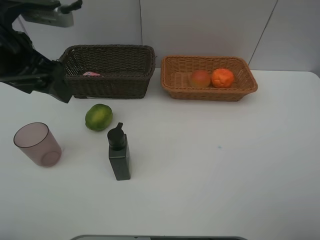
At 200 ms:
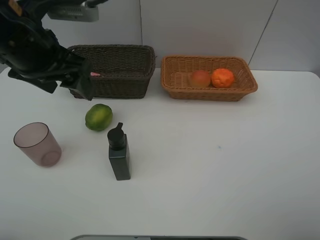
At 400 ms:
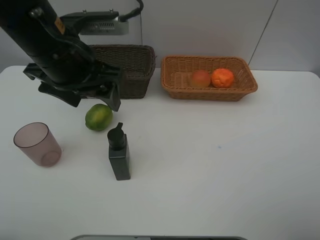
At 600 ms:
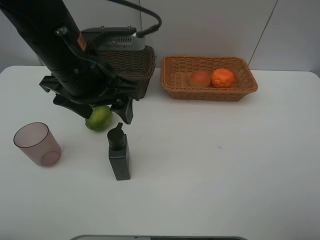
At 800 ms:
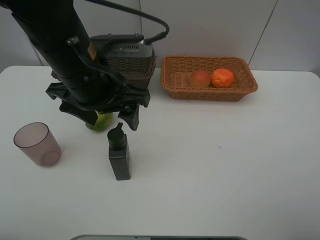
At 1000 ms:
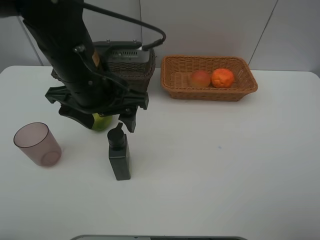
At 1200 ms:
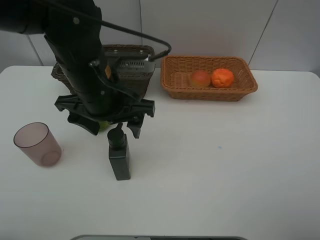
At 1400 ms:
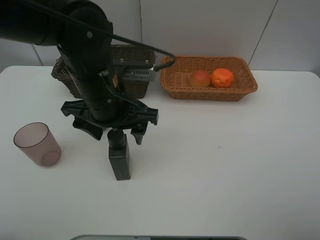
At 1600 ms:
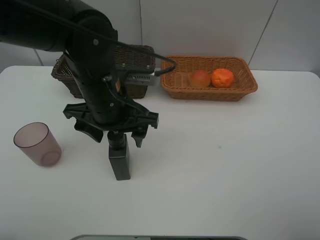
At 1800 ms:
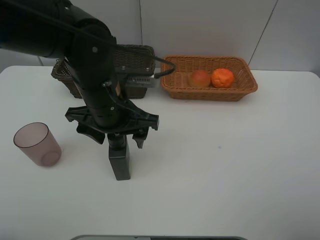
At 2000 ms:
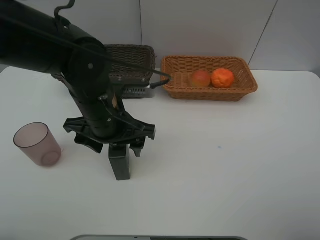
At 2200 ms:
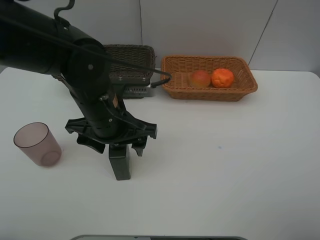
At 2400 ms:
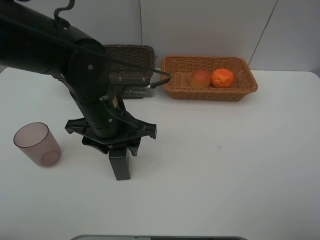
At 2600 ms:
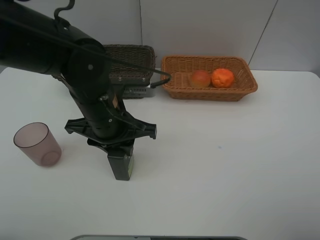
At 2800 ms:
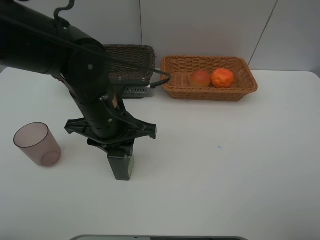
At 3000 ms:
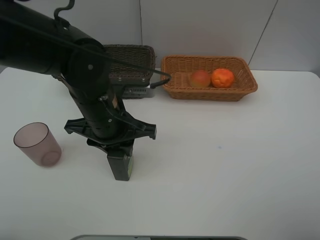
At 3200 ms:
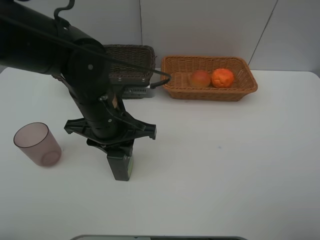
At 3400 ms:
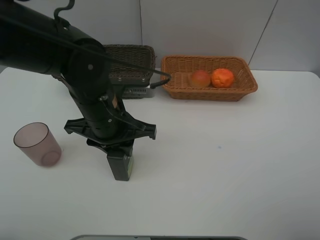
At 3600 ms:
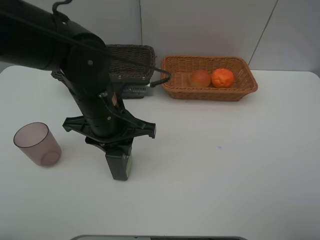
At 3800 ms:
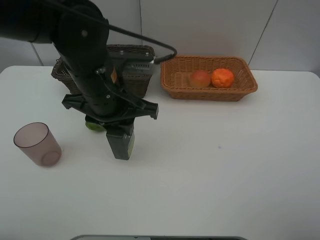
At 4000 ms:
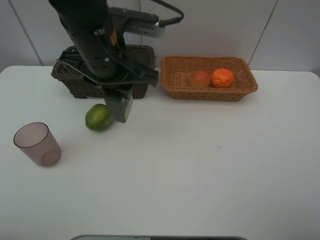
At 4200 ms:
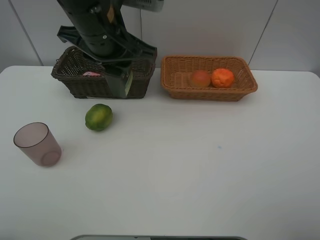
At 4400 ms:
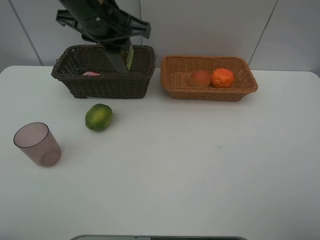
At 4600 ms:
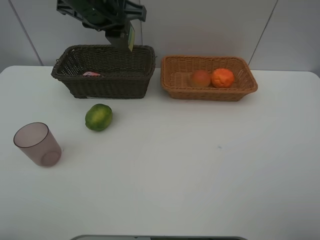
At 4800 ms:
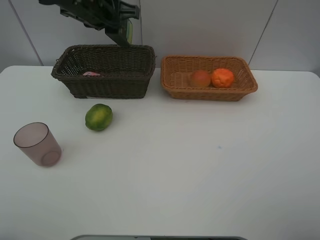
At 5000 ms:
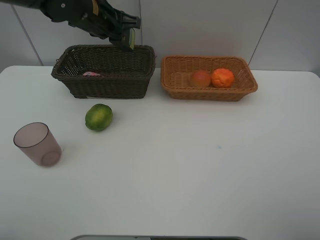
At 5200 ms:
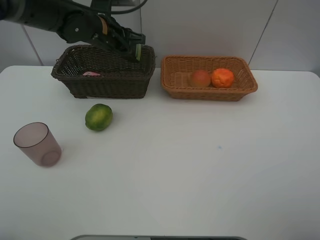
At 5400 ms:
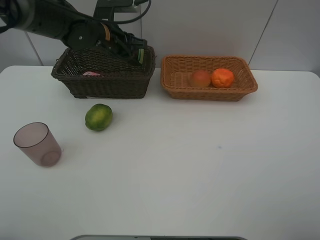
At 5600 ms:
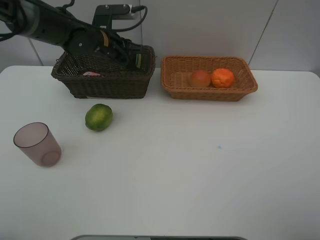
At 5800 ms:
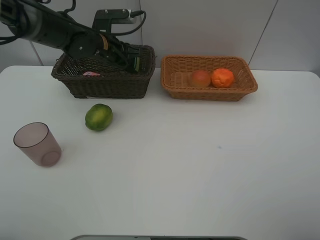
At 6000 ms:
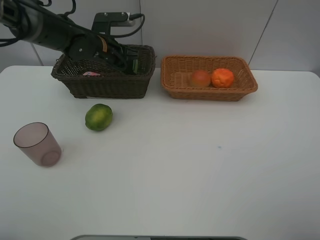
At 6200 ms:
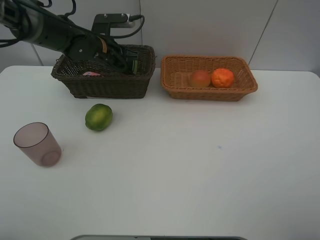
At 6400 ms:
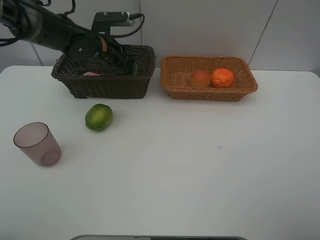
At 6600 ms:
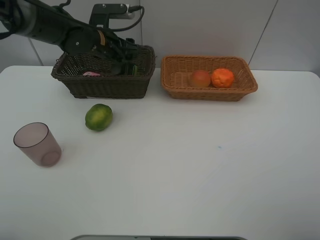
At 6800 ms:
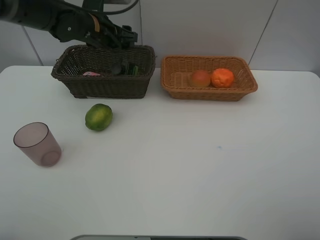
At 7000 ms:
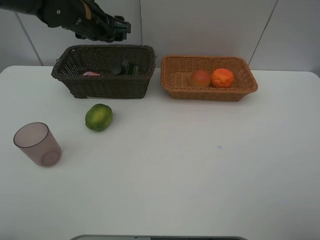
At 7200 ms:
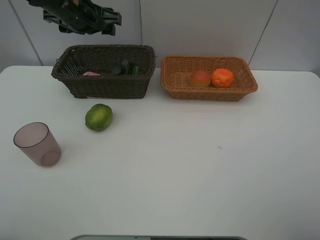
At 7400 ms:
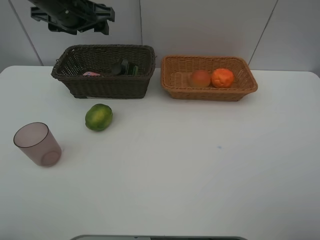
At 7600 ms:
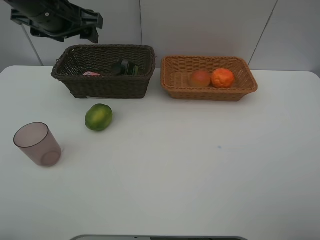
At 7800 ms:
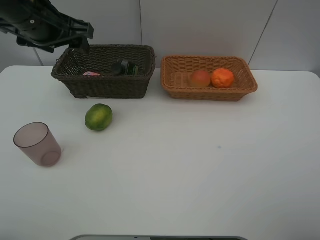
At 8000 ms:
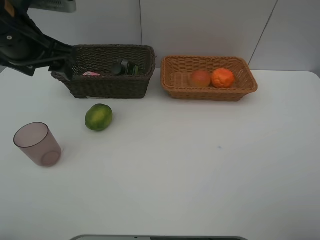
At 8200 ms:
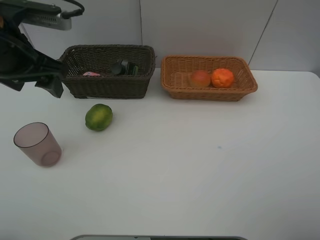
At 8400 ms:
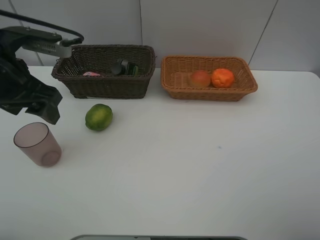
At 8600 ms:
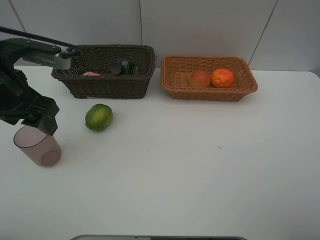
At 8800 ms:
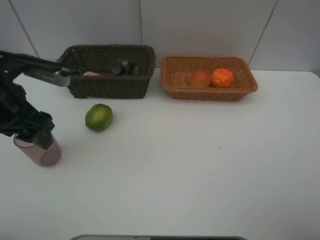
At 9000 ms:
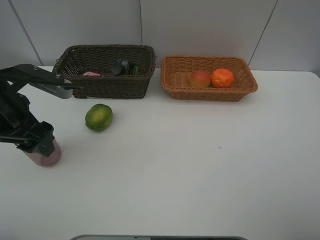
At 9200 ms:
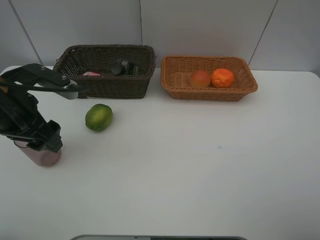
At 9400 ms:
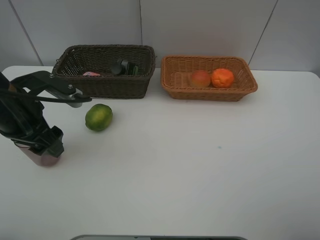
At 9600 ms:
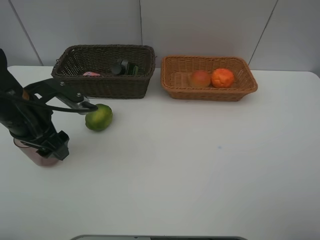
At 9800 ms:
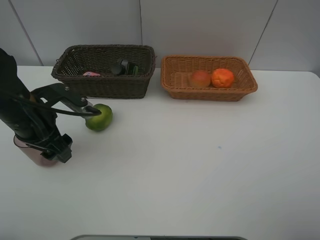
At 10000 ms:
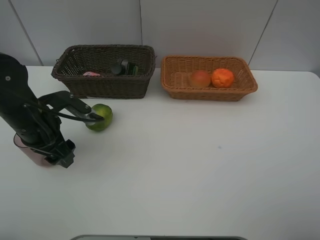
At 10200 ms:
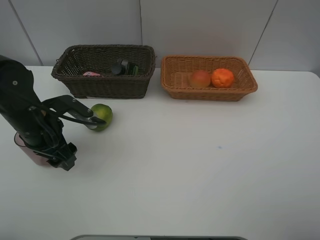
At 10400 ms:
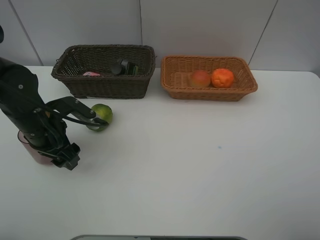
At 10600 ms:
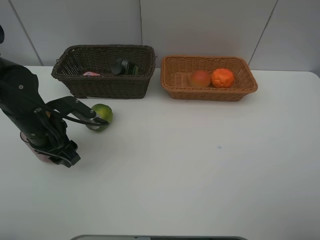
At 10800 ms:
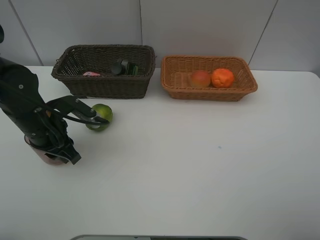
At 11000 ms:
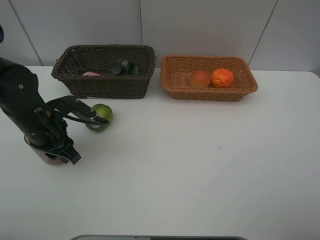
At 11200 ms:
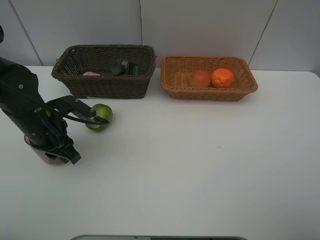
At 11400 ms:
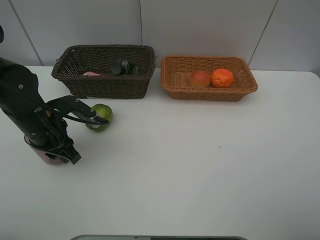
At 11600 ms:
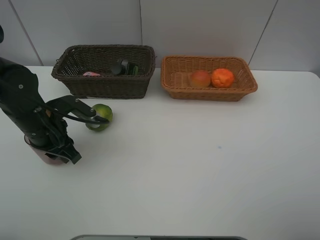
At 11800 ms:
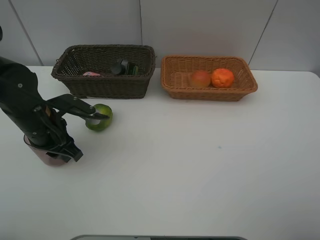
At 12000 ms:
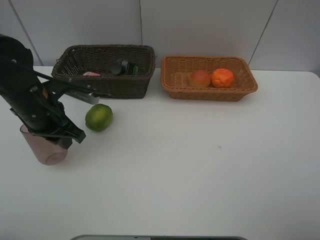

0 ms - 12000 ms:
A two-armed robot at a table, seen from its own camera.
Task of the whole recording: place multiple objects separately in different baskets.
0 ms - 1600 ms: The left gripper travels to the right and downward by about 15 cm.
1600 ms - 3000 ms: The left gripper closes its fingers.
3000 ms - 4400 ms: The left gripper travels upward and forward by about 15 cm.
4400 ms - 6000 ms: The left gripper shifts approximately 20 cm downward and forward.
6000 ms - 7600 ms: The left gripper goes some 15 cm upward and backward, and opens its fingers.
7600 ms - 9000 ms: The left gripper shifts roughly 15 cm backward and downward.
9000 ms - 10400 ms: The left gripper moves downward, approximately 10 cm.
10400 ms - 12000 ms: The left gripper closes.

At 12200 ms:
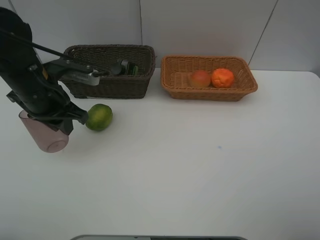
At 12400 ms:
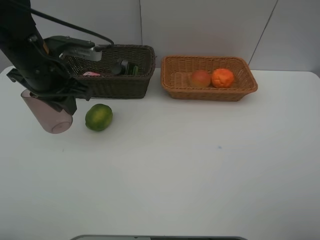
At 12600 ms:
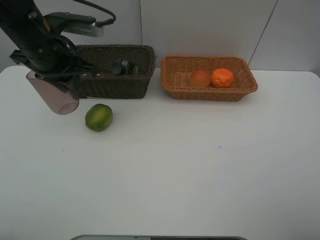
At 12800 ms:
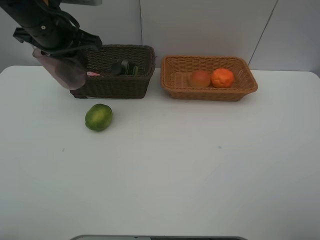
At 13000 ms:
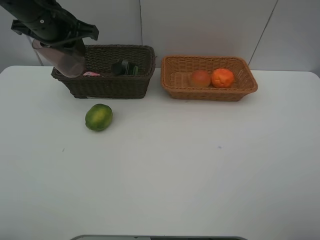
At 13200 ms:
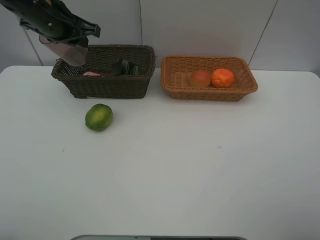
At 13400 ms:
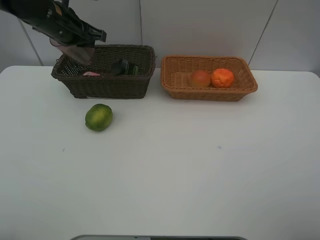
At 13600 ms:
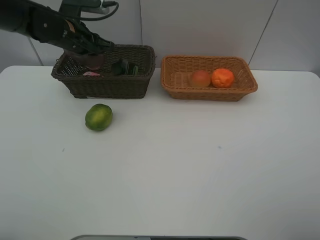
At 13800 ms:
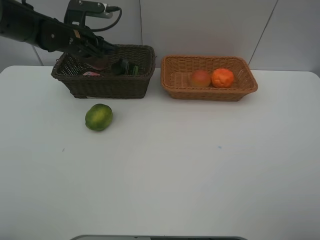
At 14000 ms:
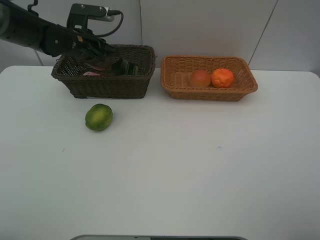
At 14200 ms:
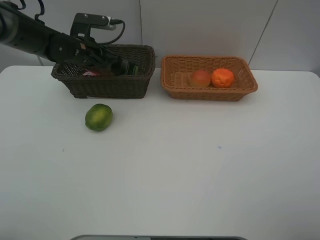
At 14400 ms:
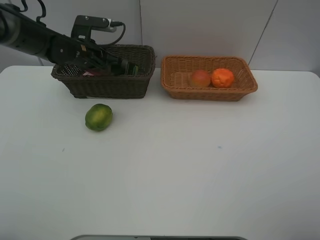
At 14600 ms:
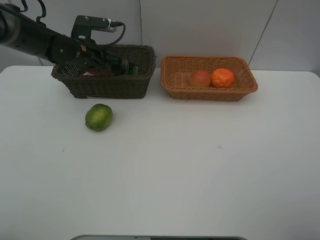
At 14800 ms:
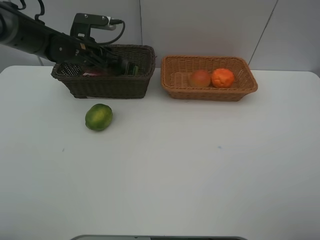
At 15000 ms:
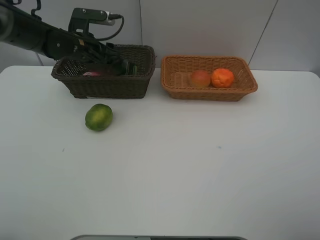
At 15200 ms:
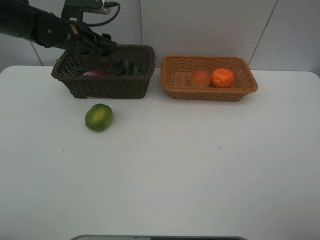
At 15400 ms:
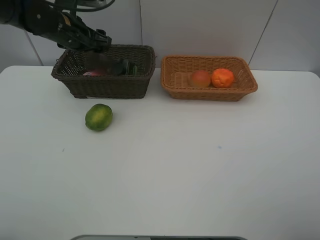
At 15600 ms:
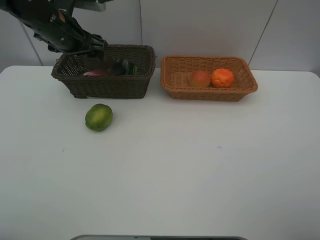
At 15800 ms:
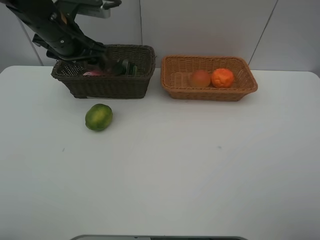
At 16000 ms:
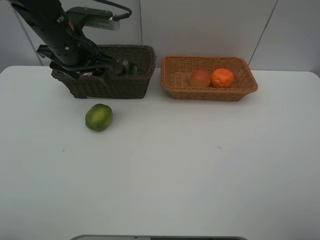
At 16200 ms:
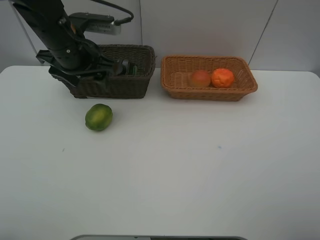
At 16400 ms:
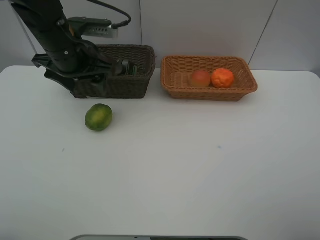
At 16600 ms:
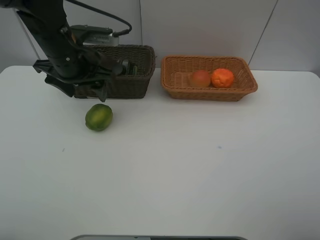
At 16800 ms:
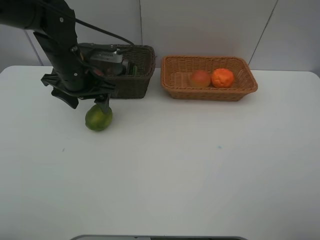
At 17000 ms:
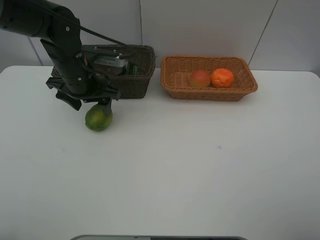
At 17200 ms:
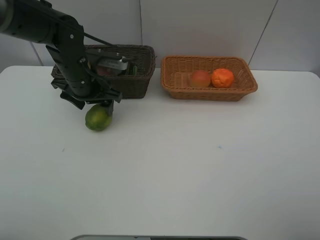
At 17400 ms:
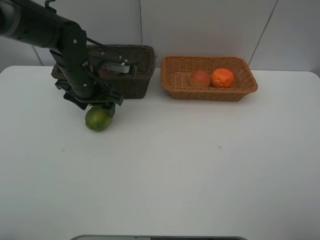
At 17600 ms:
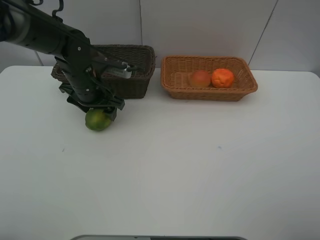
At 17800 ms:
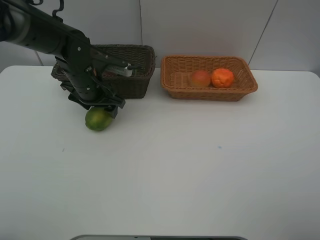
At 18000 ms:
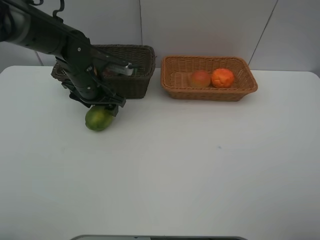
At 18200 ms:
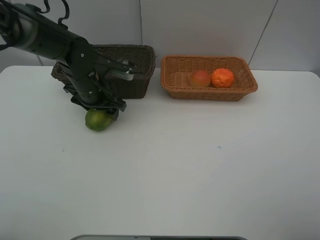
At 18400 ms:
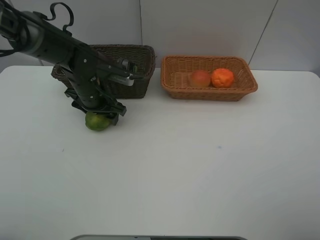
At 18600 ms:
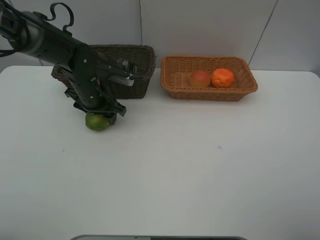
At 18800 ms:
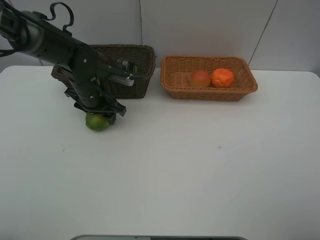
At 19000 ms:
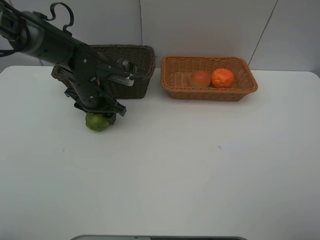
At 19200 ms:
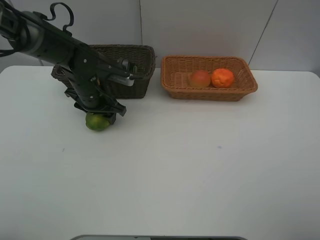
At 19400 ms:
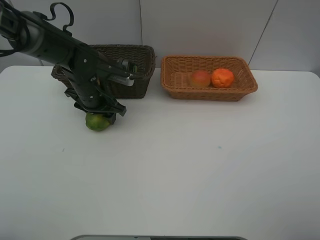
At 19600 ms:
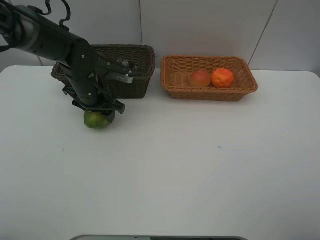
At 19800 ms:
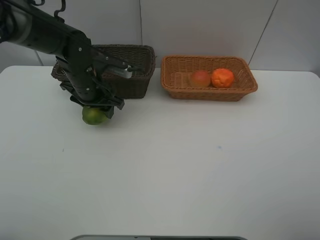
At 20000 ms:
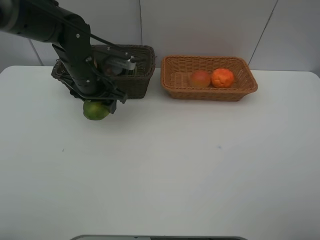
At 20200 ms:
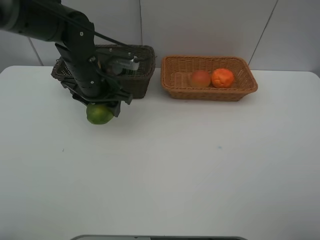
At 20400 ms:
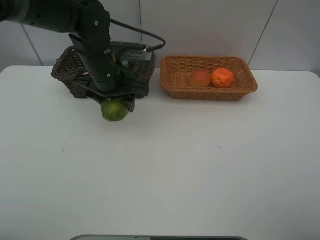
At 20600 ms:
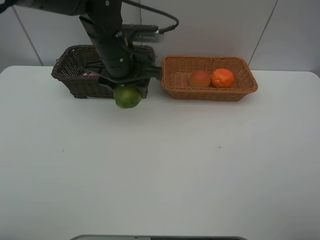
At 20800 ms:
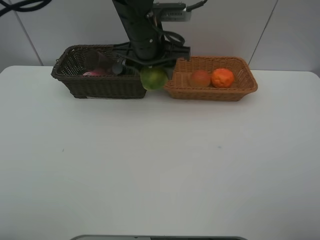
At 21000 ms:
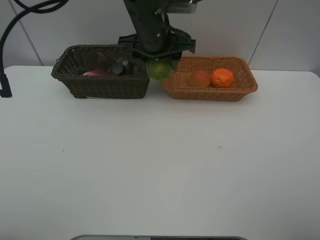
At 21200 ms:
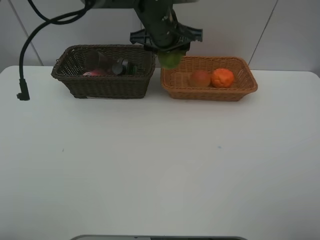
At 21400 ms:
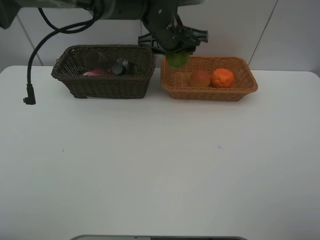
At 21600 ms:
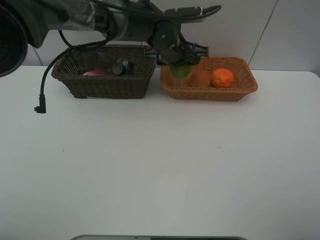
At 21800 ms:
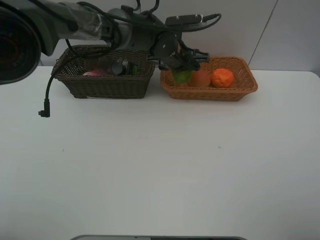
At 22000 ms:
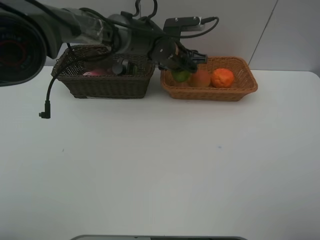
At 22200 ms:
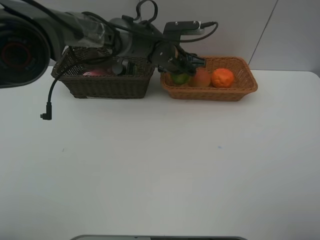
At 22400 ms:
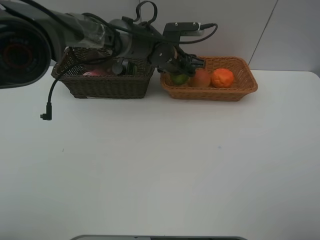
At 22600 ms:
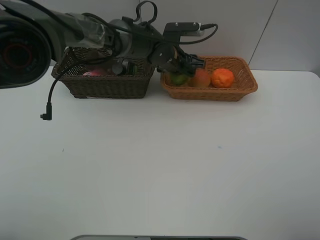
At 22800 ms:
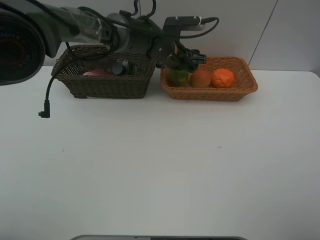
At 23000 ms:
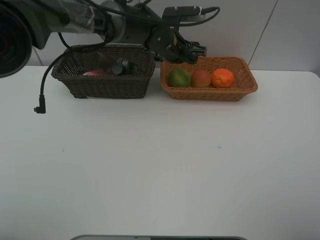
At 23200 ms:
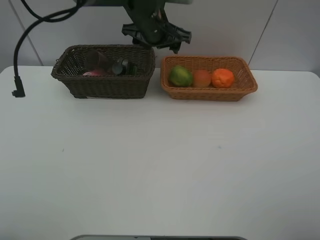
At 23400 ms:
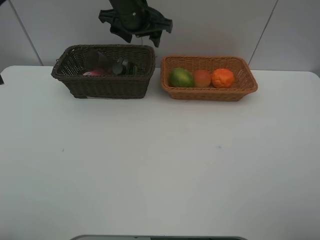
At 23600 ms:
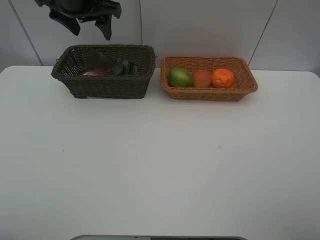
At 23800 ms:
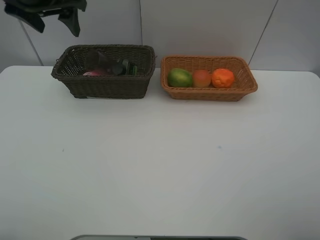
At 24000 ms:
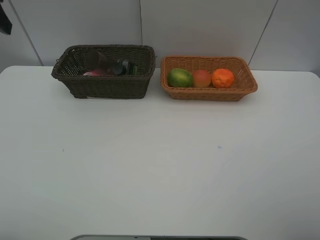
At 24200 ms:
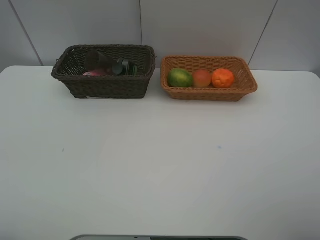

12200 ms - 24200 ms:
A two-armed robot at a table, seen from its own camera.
Task of the whole recording: place multiple objects separately in different baskets.
12200 ms - 13800 ms: The left gripper is displaced forward by some 15 cm.
13800 ms - 15200 ms: The left gripper opens its fingers.
15200 ms - 16600 ms: The left gripper is displaced backward by some 10 cm.
16600 ms - 18200 ms: The left gripper heads downward, covering about 10 cm.
18200 ms - 19800 ms: There are only small adjustments of the grippers.
19800 ms - 21200 ms: The left gripper heads to the right and upward, covering about 20 cm.
21200 ms - 22600 ms: The left gripper is displaced downward by some 10 cm.
22600 ms - 24200 ms: The left gripper goes roughly 50 cm to the left, backward and upward.
